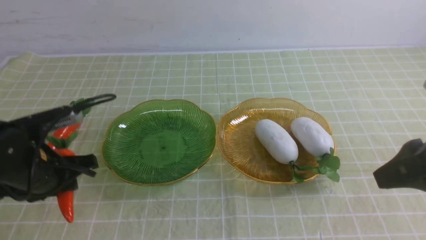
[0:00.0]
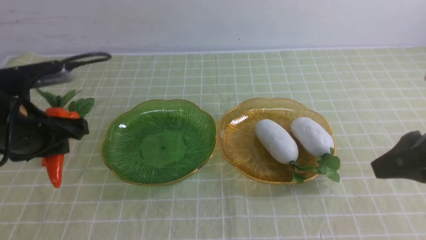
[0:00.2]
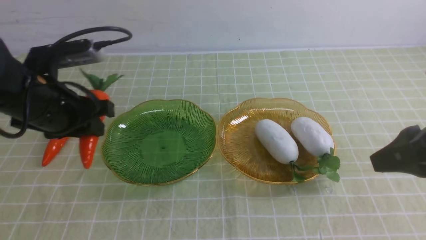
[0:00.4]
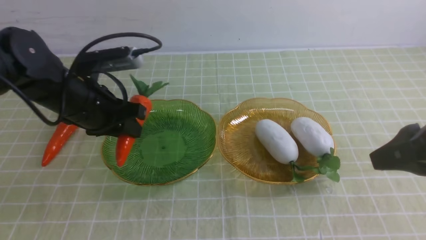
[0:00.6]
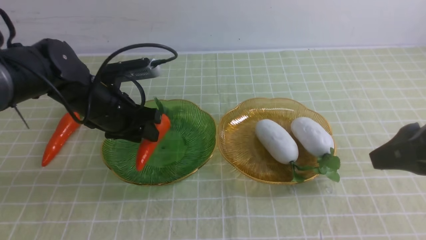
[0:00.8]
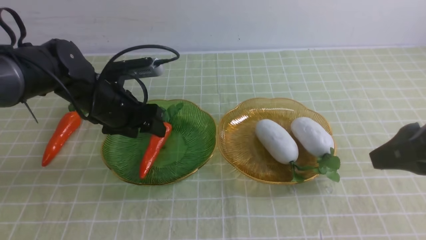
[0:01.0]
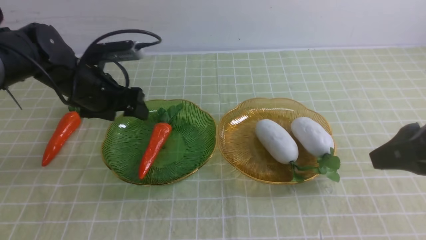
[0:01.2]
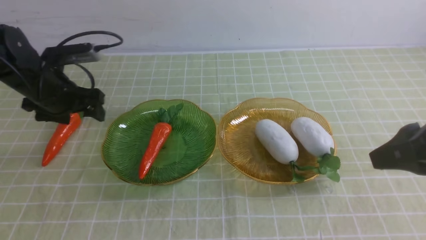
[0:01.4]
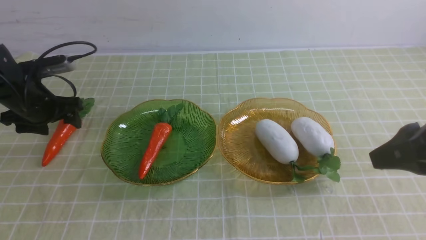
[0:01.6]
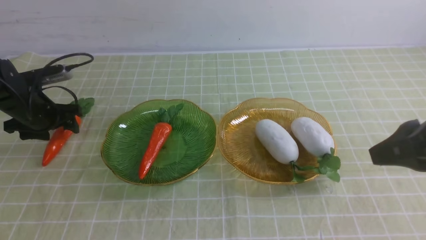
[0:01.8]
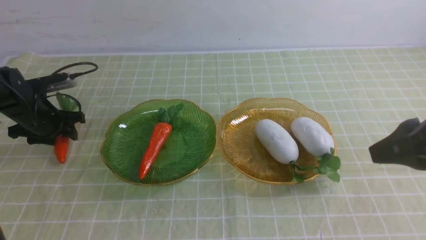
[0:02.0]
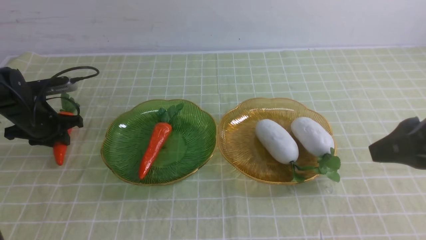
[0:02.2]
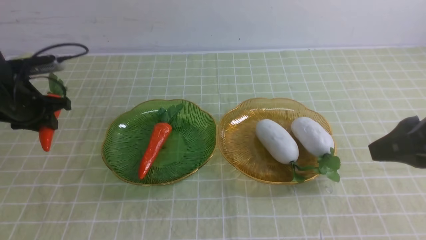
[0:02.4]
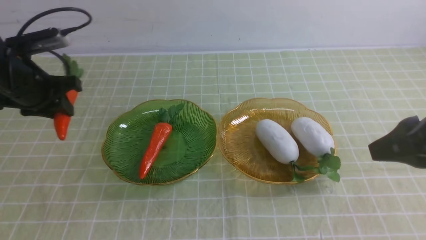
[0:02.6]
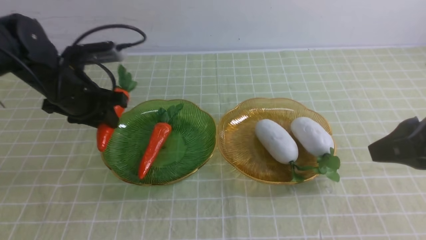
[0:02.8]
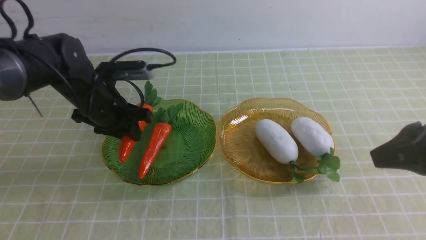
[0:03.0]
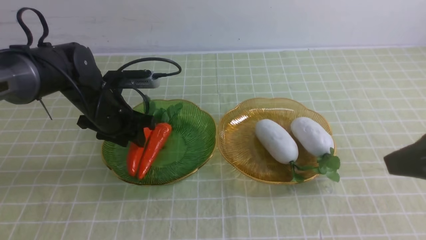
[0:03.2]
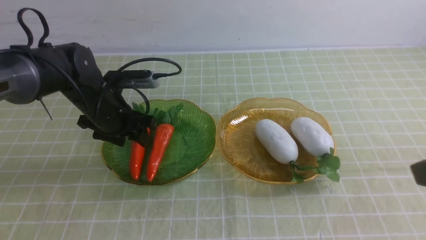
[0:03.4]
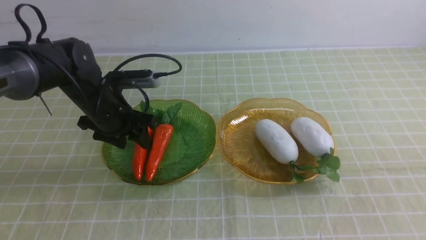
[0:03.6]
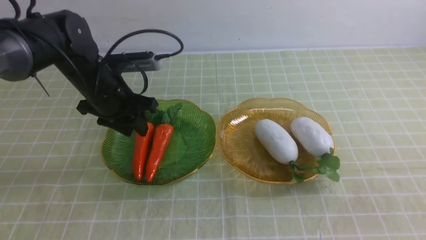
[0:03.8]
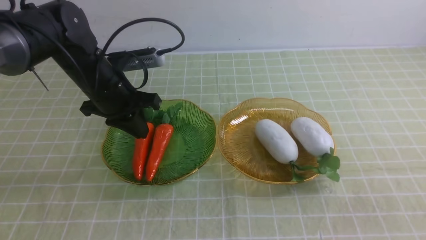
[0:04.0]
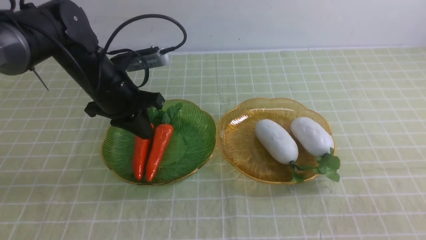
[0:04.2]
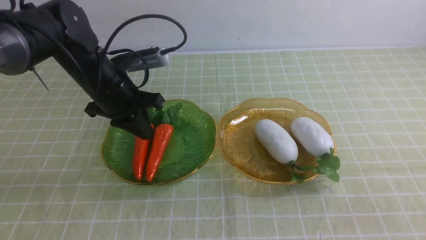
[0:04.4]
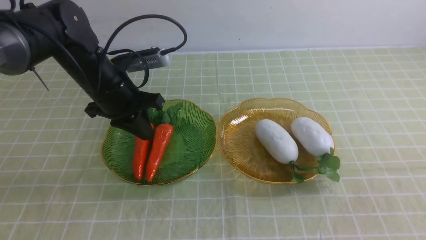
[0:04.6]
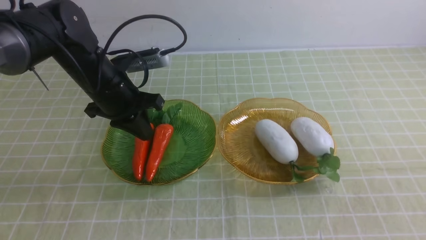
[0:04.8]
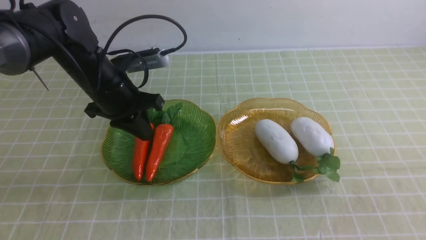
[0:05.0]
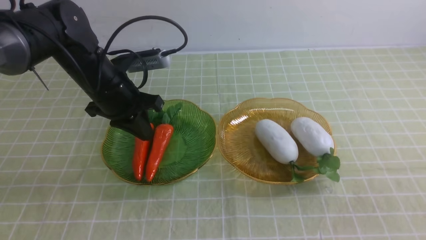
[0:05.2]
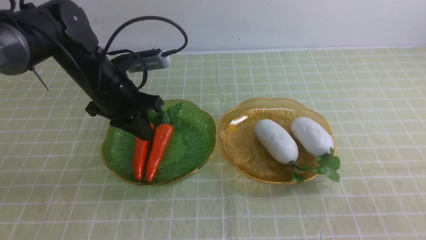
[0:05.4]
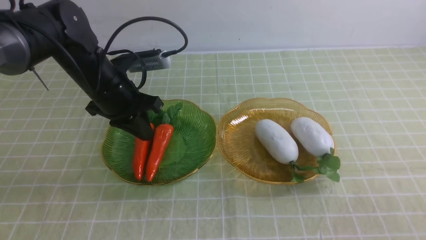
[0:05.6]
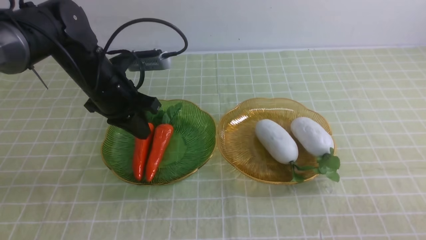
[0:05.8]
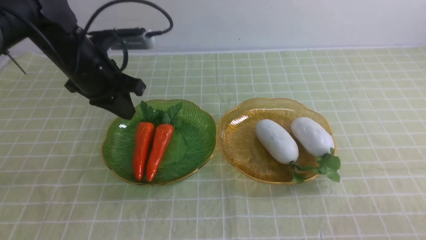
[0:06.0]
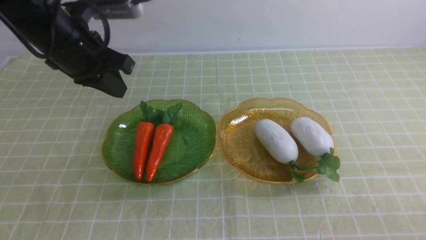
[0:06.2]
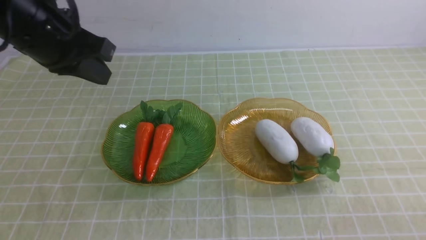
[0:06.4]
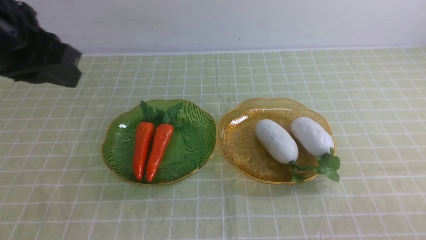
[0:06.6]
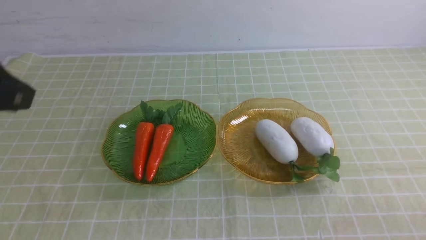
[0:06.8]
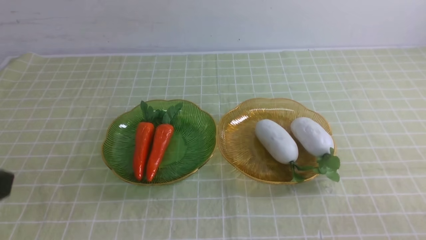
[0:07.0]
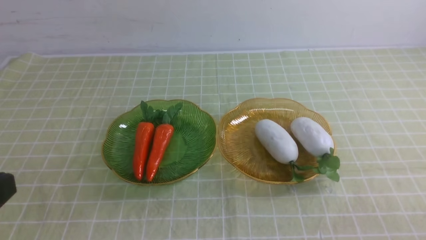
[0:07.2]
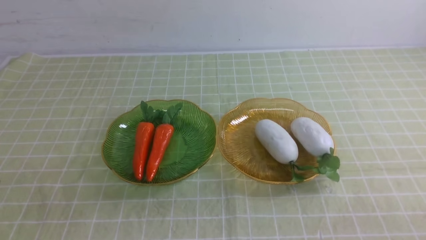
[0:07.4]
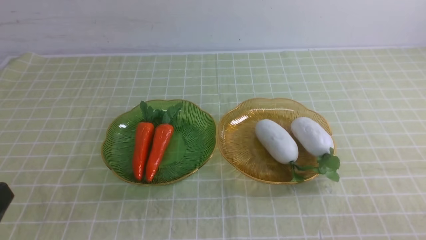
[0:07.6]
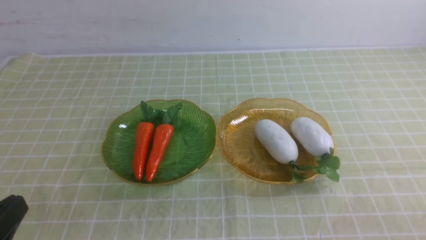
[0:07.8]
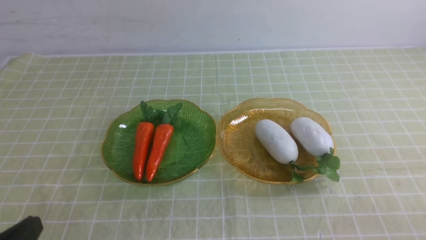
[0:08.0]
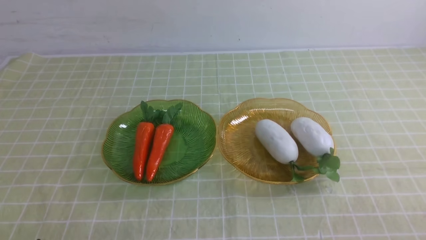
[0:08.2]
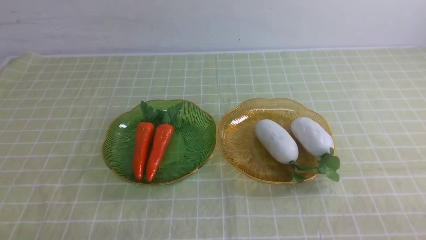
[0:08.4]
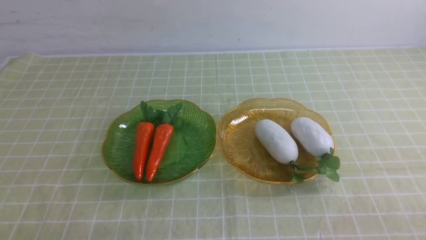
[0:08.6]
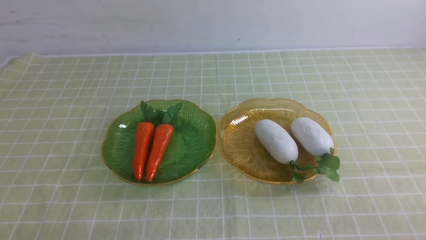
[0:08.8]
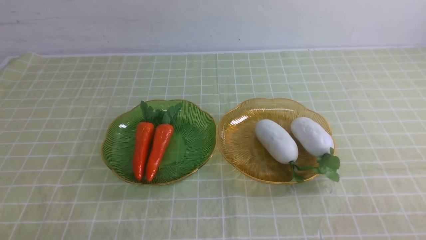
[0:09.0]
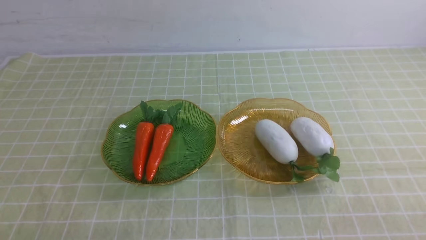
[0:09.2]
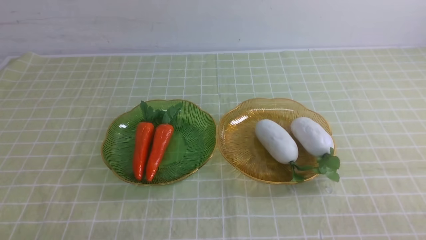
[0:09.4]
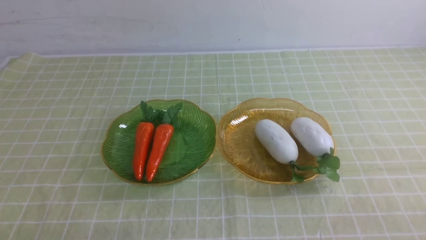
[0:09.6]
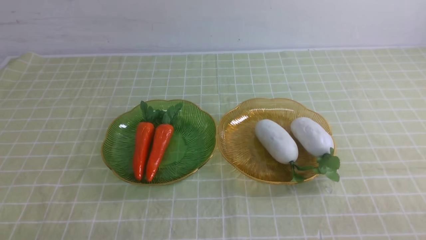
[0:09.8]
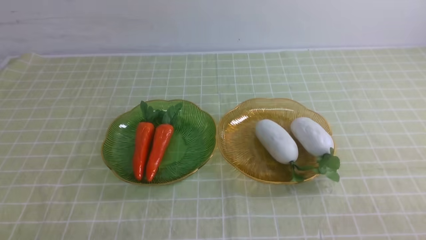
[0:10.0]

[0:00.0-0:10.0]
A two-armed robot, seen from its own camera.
Step, 0:00.0 to 0:04.4: use the left arm to grab a carrot and put it into the left plate.
0:00.0 to 0:01.4: The left gripper shifts roughly 15 cm forward, and opens up.
0:01.4 to 0:02.8: The left gripper moves to the right, roughly 5 cm, and closes up.
0:02.8 to 0:04.2: The right gripper shifts roughly 15 cm backward; the left gripper goes roughly 5 cm to the right.
0:04.2 to 0:05.8: The right gripper travels downward by approximately 15 cm.
0:05.8 to 0:07.2: The left gripper travels backward by roughly 35 cm.
0:08.6 to 0:10.0: The two grippers keep their place.
